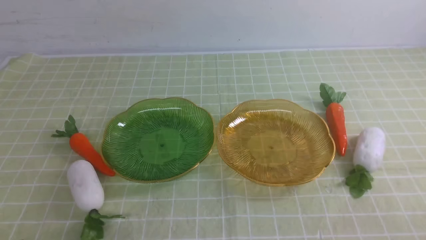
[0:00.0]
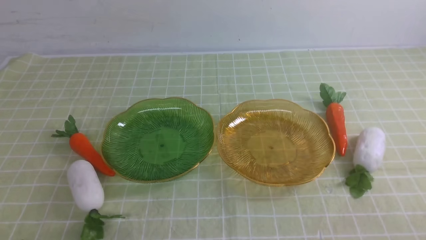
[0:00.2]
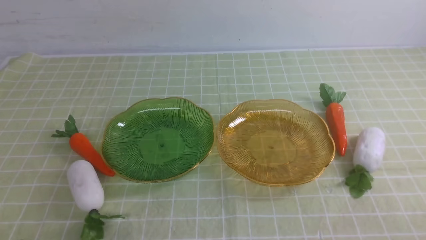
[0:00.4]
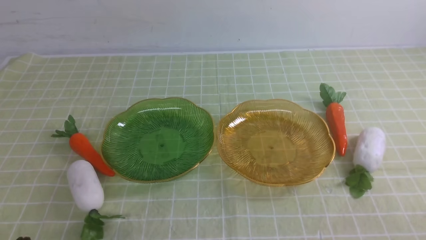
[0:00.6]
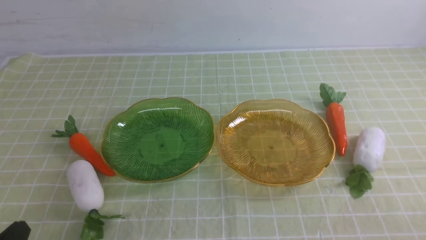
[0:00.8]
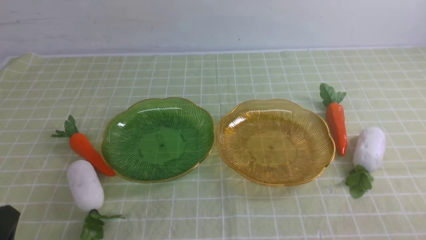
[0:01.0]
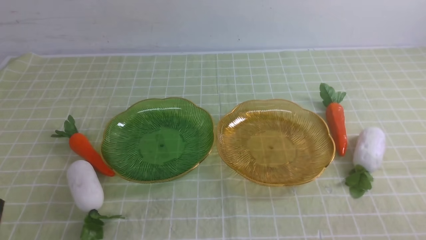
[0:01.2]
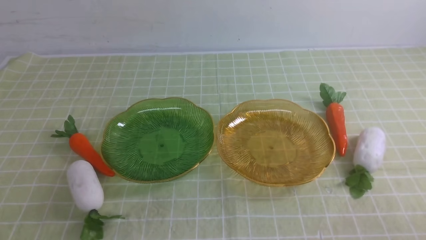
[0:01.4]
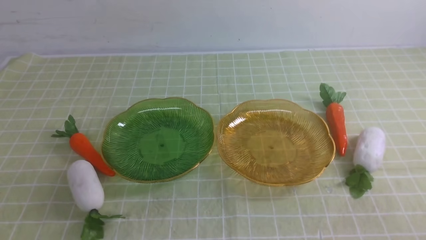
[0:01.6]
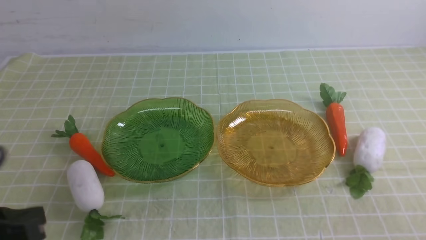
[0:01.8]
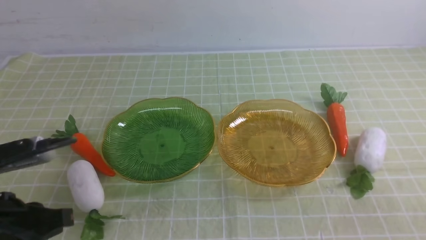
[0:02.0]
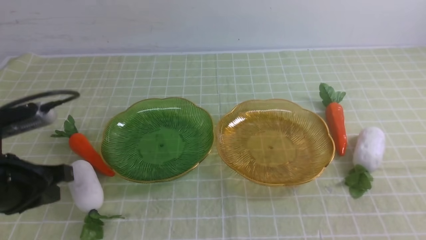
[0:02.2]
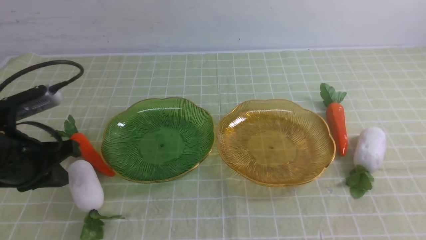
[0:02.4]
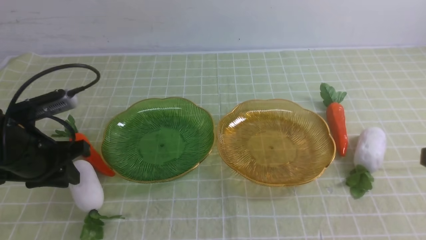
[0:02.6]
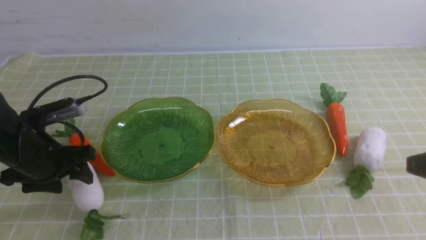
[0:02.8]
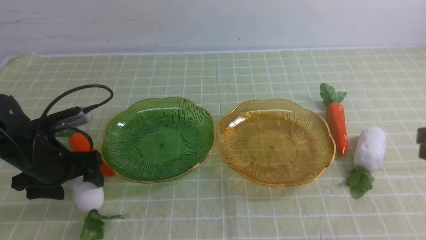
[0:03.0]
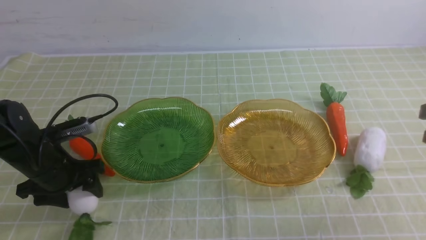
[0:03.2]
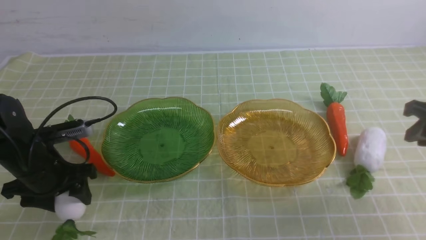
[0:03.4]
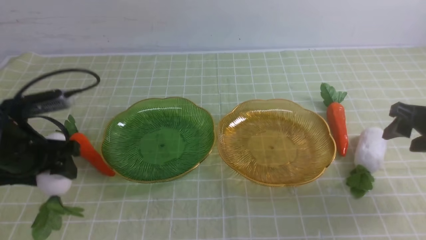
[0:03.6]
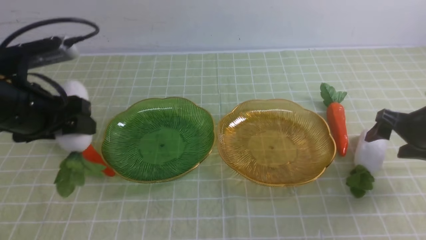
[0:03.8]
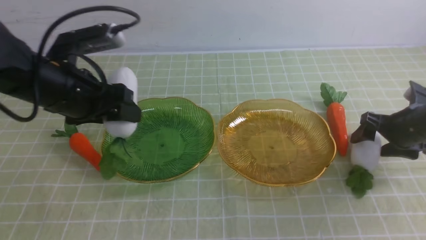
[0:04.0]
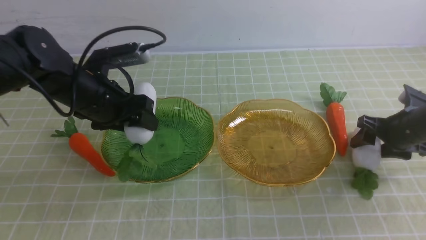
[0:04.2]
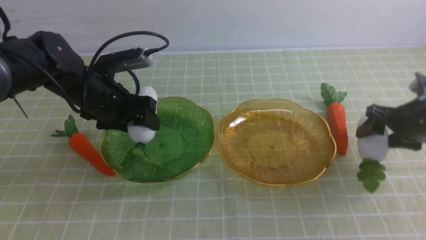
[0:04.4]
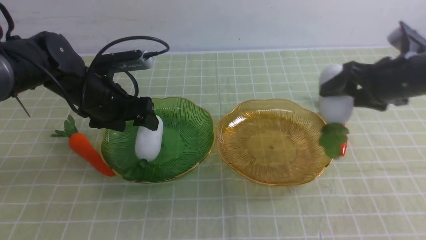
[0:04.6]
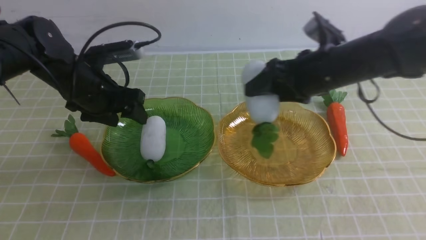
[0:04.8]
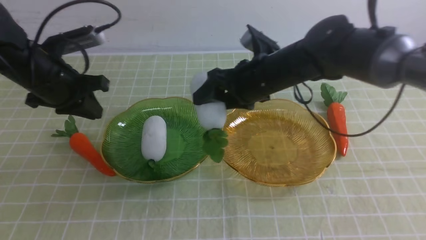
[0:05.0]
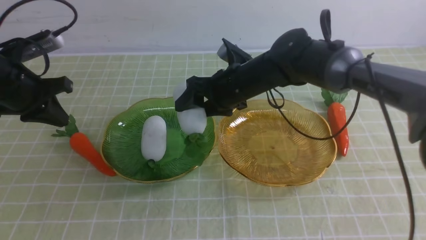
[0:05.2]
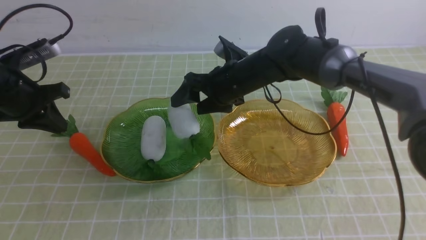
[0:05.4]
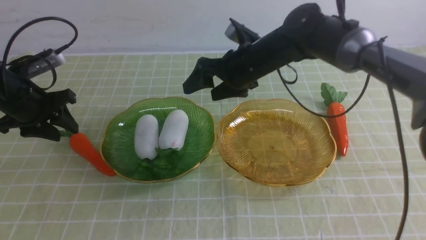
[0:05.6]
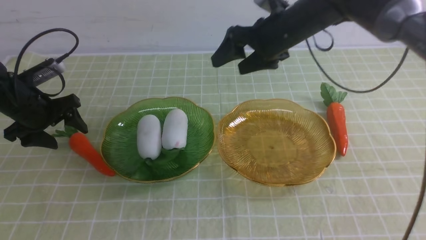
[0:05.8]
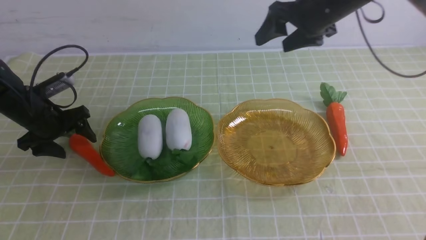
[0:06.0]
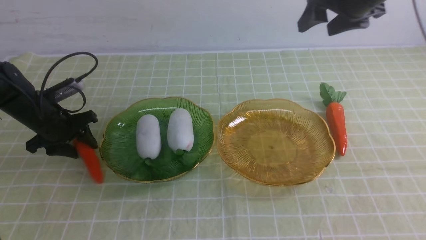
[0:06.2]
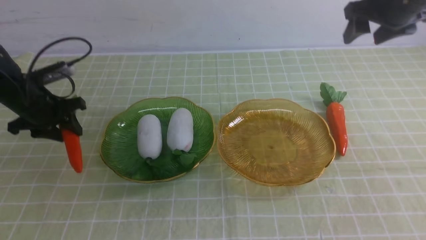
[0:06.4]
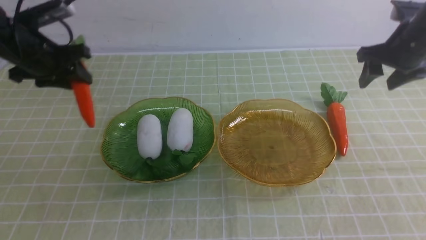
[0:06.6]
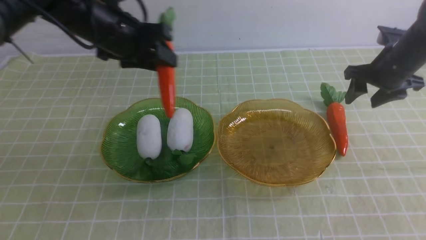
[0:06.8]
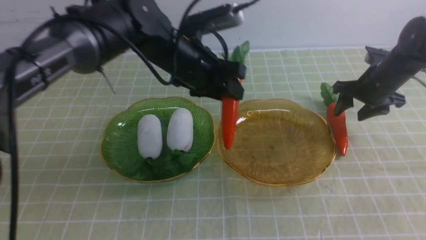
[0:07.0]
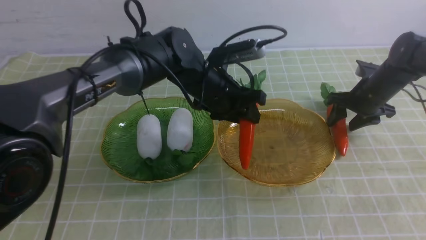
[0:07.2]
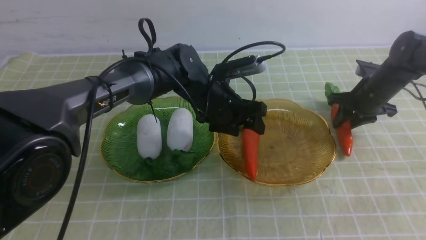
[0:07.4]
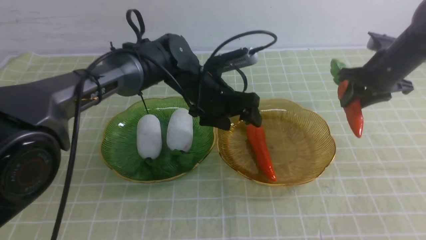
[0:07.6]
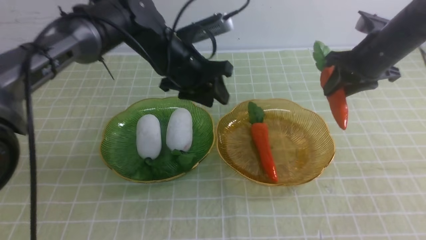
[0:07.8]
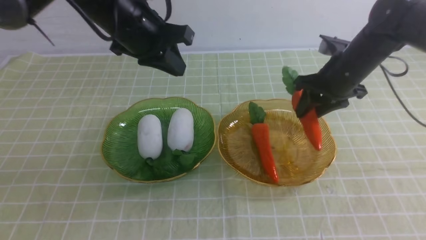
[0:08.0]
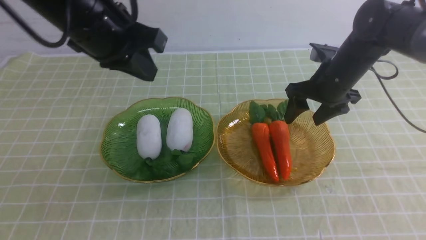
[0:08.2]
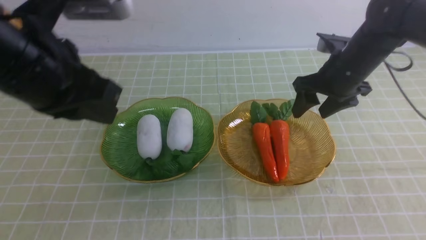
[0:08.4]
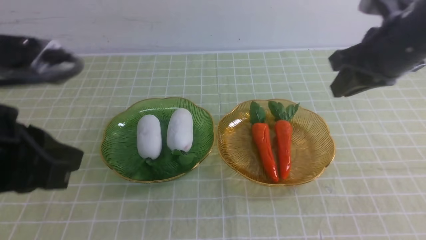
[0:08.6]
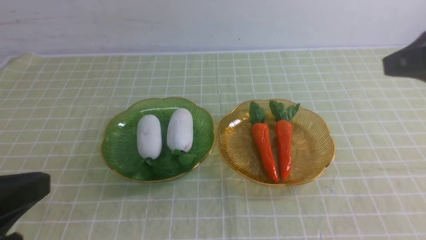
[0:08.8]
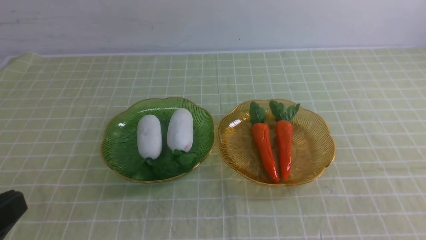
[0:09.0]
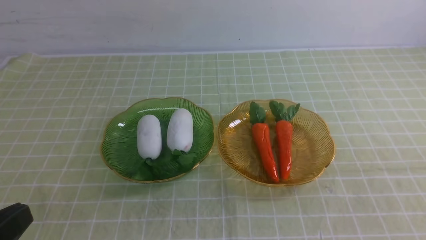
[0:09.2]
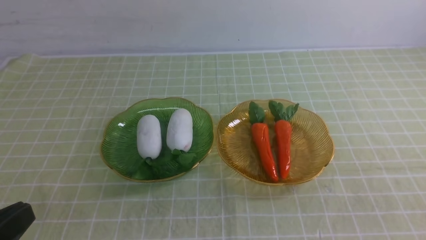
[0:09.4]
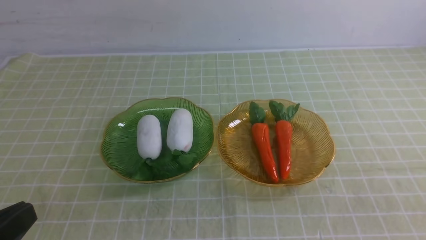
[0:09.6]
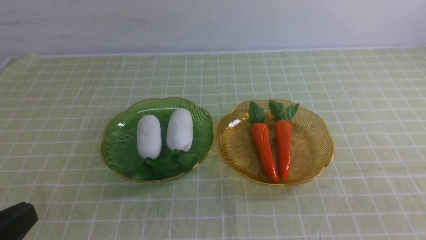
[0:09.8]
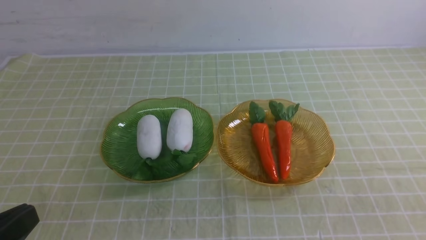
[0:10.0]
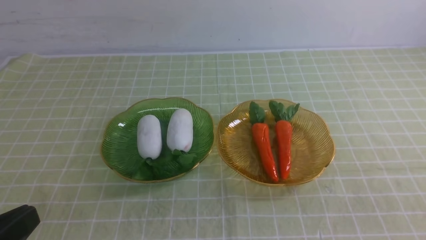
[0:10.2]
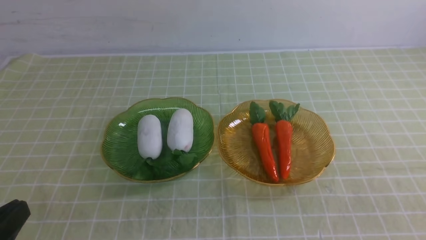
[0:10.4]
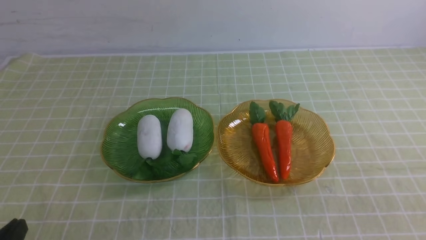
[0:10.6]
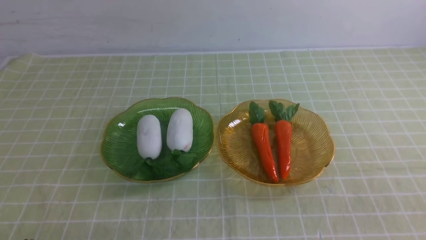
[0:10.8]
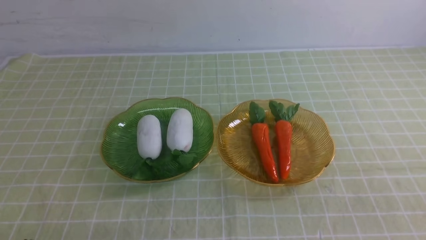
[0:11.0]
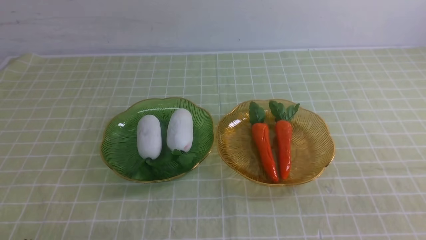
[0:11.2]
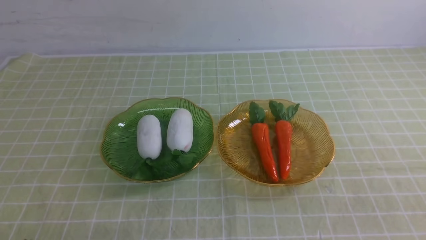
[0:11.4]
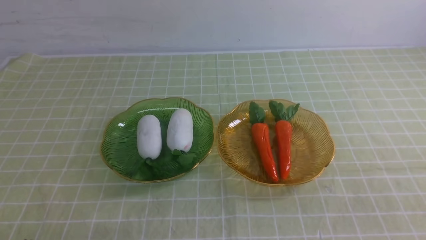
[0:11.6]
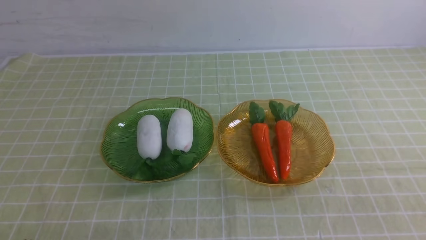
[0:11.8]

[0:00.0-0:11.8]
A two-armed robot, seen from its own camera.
Step, 0:00.0 to 0:04.6: use the left arm to grab a radish and put it into the left plate.
Step, 0:04.8 to 0:05.4: use the right arm to grab a radish and put it into the left plate.
Step, 0:05.8 to 0:07.6: use the left arm to grab a carrot and put it into the right plate.
Step, 0:07.8 to 0:08.6: use the right arm to grab a carrot and put it into the right plate.
0:01.4 to 0:03.0: The left gripper shifts roughly 25 cm forward, and opens.
0:03.0 to 0:04.4: The right gripper goes roughly 15 cm forward and downward, and opens; the left gripper moves forward, to the right and upward, approximately 10 cm.
0:04.4 to 0:06.0: The left gripper goes some 15 cm to the left and downward, and closes, then reopens. The right gripper is displaced to the left, upward and forward by approximately 20 cm.
0:06.0 to 0:07.4: The right gripper moves downward and to the right, some 20 cm, and closes up. Meanwhile the left gripper goes some 30 cm to the right.
0:07.4 to 0:08.8: The right gripper heads backward and upward, covering roughly 35 cm, and closes its fingers; the left gripper is displaced backward and to the left by about 40 cm, and closes.
0:08.8 to 0:10.4: The left gripper goes about 10 cm downward, while the right gripper moves backward and downward, about 20 cm.
0:10.4 to 0:11.8: The left gripper moves downward, approximately 10 cm.

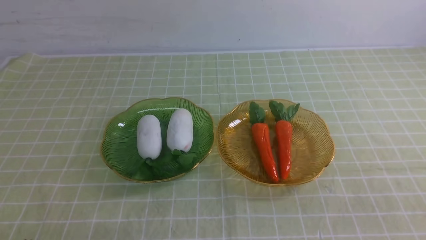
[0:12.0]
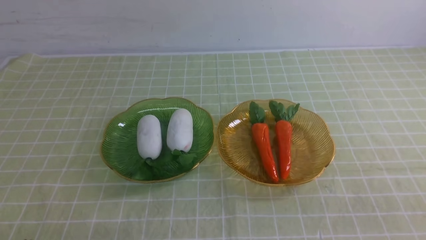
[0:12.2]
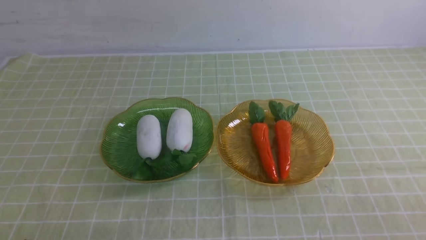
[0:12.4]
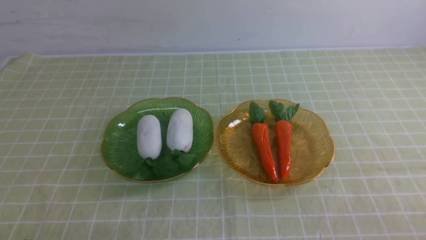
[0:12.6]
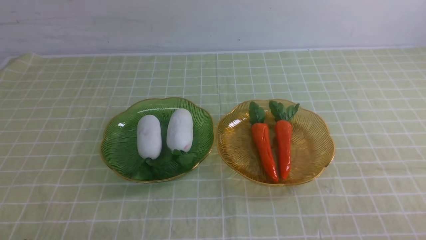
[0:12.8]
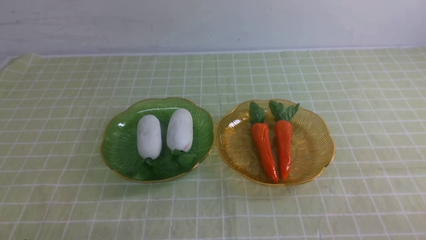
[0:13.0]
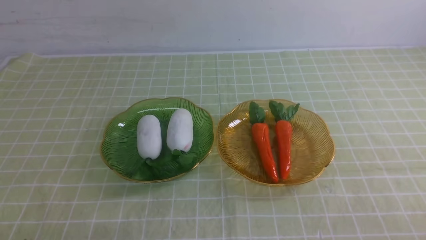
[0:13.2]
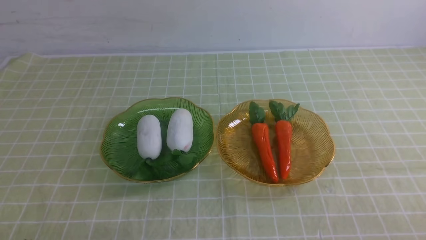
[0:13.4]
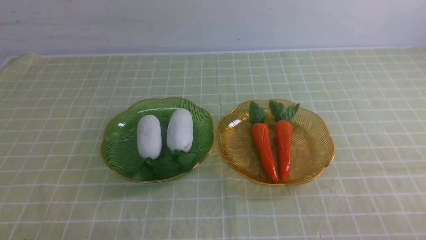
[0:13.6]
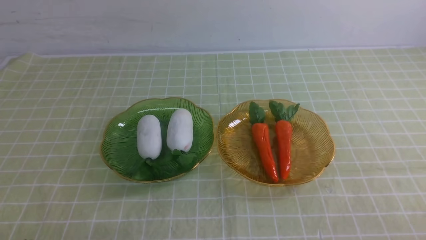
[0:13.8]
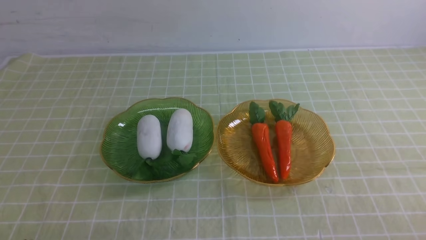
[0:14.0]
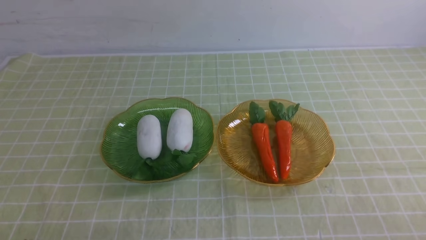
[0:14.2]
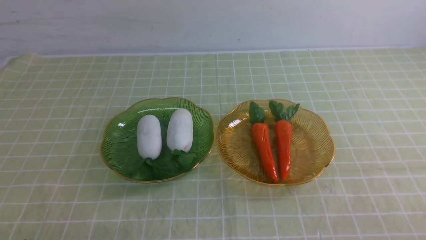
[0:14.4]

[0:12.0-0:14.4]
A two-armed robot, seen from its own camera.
0:13.2 to 0:14.4: Both grippers stay about where they are.
